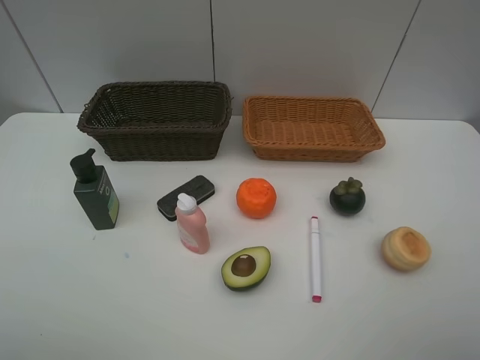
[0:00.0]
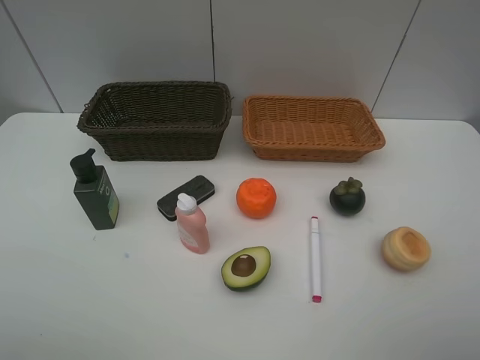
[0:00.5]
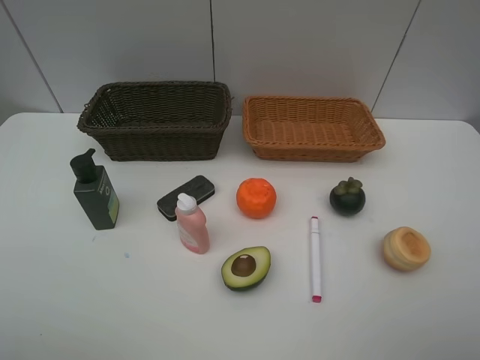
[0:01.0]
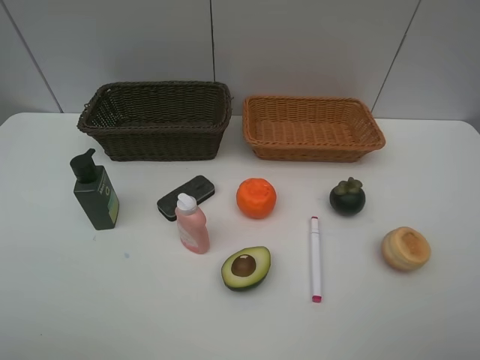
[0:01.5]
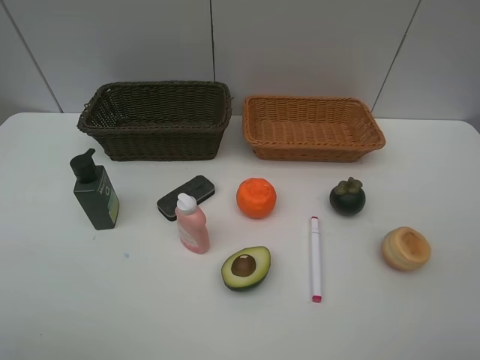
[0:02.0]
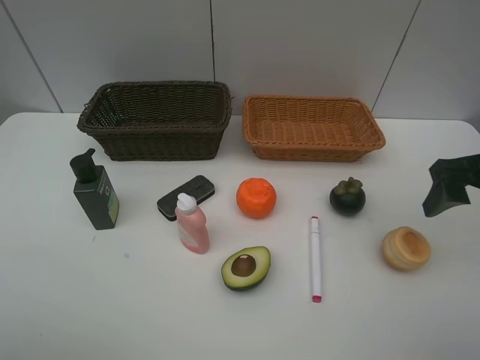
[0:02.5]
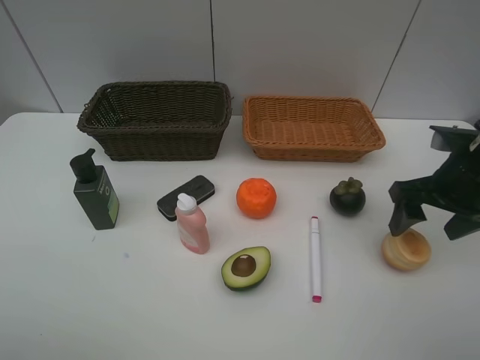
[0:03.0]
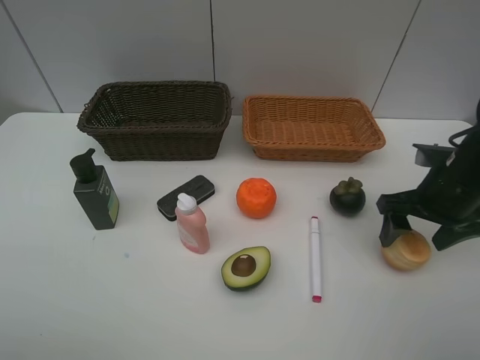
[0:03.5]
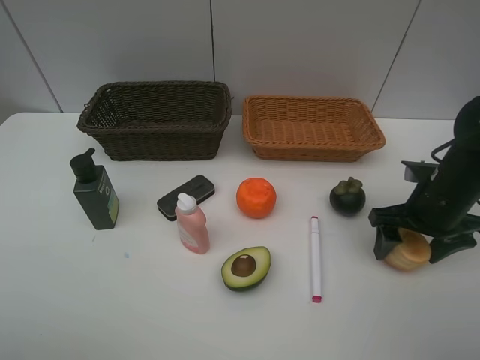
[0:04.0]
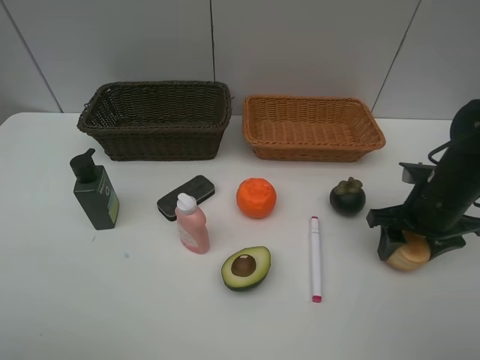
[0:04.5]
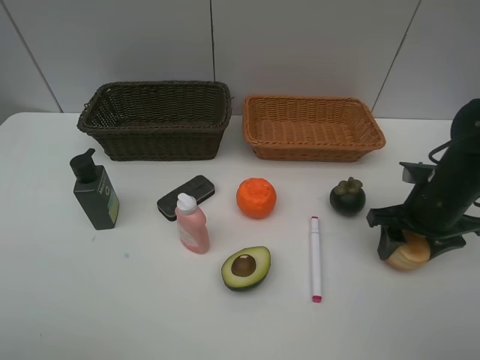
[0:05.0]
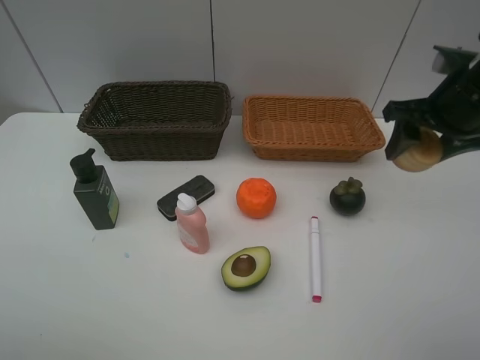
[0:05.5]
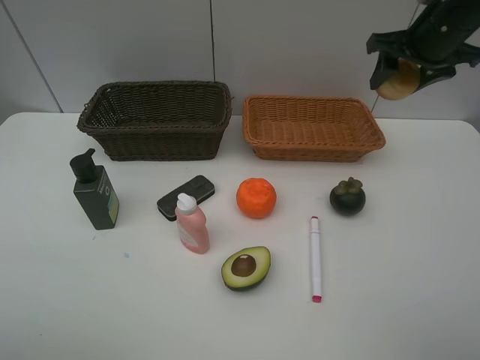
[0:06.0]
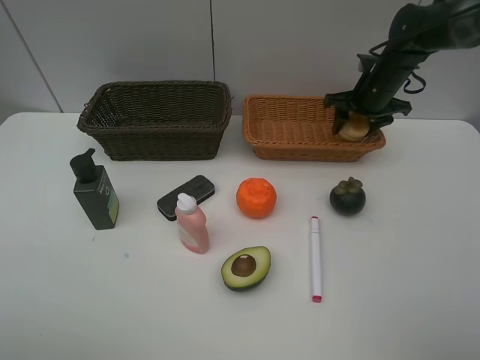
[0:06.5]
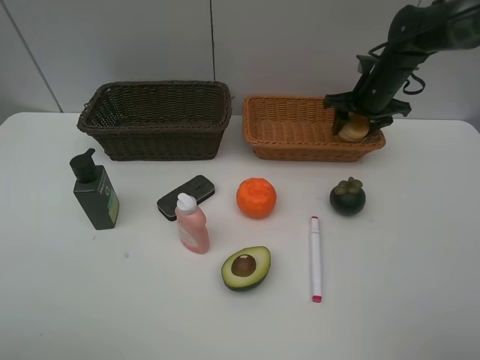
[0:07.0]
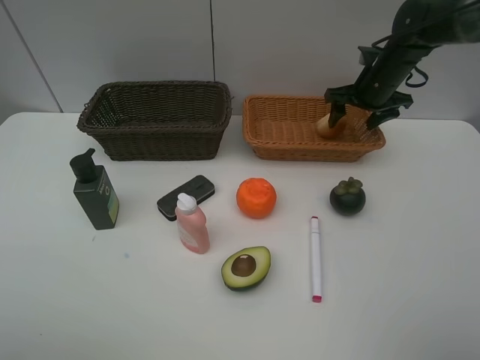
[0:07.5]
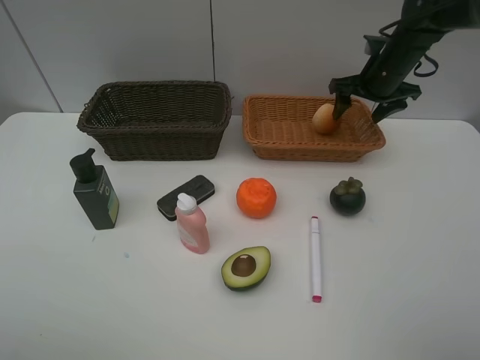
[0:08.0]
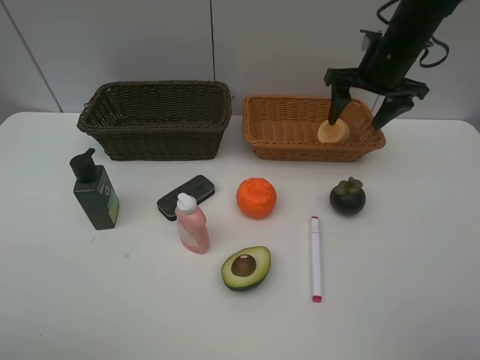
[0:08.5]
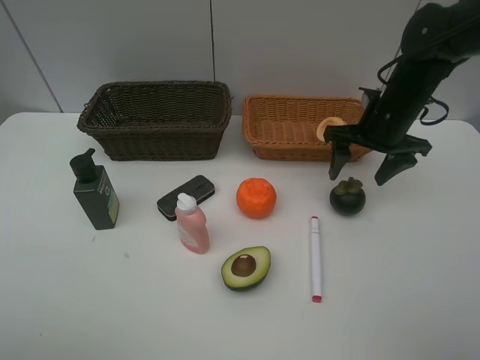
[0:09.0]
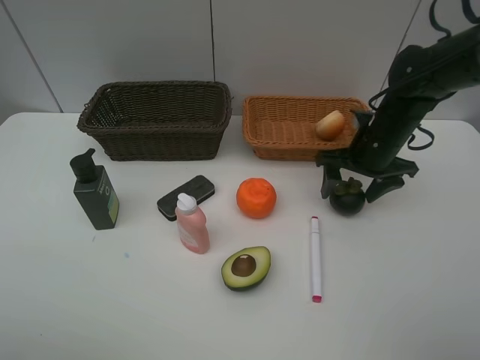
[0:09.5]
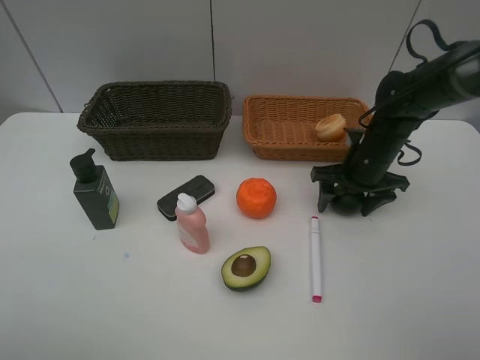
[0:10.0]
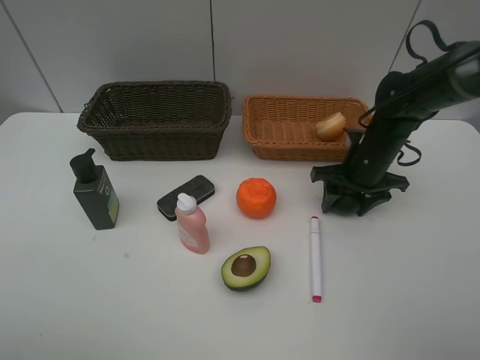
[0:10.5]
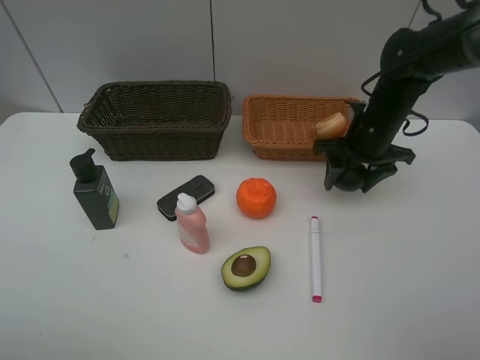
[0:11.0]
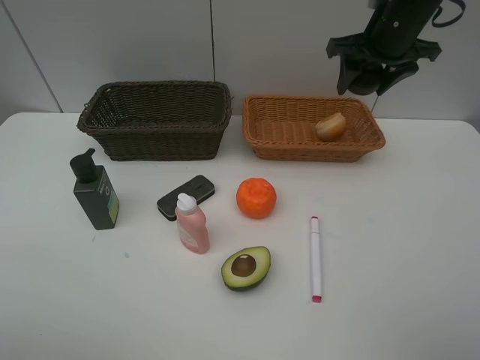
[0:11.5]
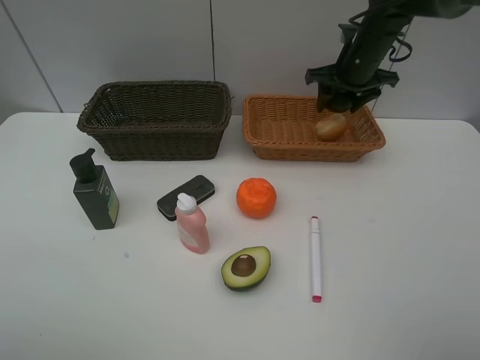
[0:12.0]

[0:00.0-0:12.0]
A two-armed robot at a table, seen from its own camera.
Task of the whole recording: Place multiple objects separately in different baskets.
Step, 0:00.0 to 0:05.0: Pick up egg yolk pastry with right gripper.
Step, 0:05.5 to 0:07.5: Place the egg yolk pastry in the light basket with right gripper.
Step, 0:08.0 to 0:11.0: Pick up the mangosteen with right gripper.
0:02.0 to 0:04.0: The right gripper goes roughly 20 cm downward and forward.
0:04.0 to 0:06.0: The right gripper goes about 20 cm upward and forward.
0:06.0 to 0:08.0: The right gripper shifts about 10 cm downward and forward.
0:08.0 to 0:10.0: The right gripper is displaced backward and downward by roughly 15 cm.
0:10.0 to 0:12.0: The right gripper travels forward and upward by about 15 cm.

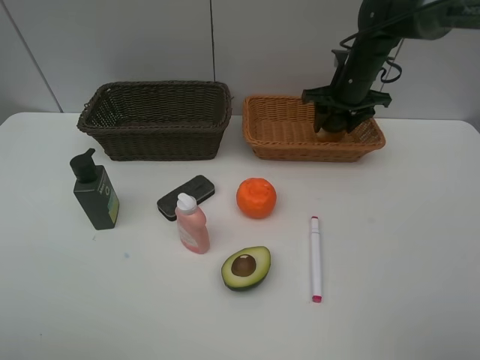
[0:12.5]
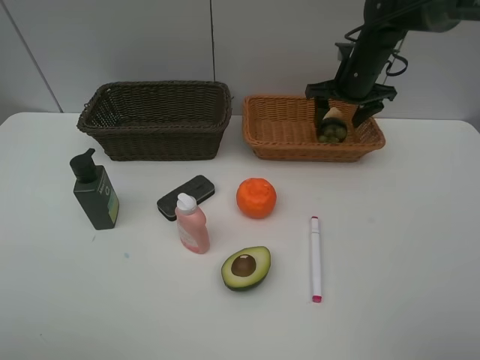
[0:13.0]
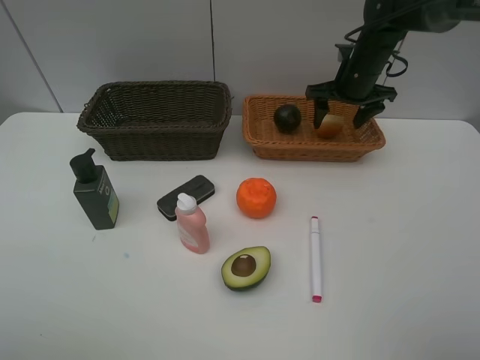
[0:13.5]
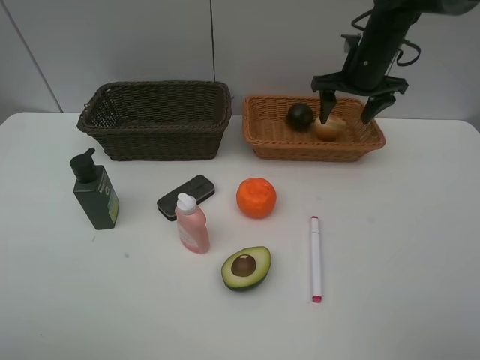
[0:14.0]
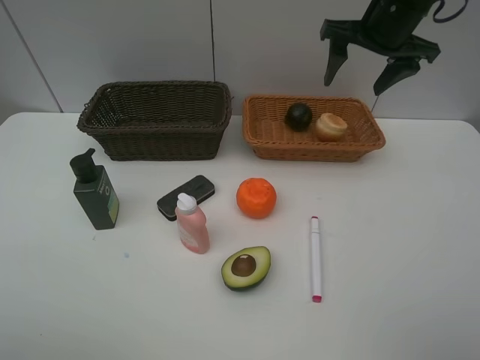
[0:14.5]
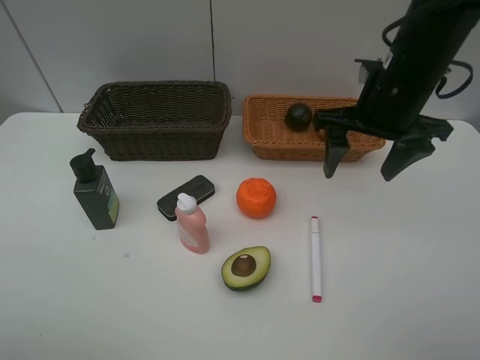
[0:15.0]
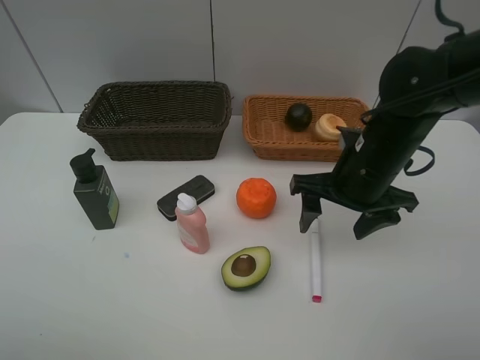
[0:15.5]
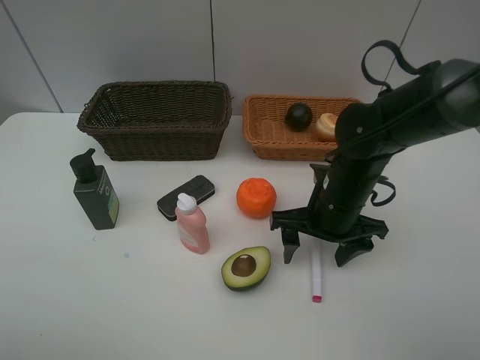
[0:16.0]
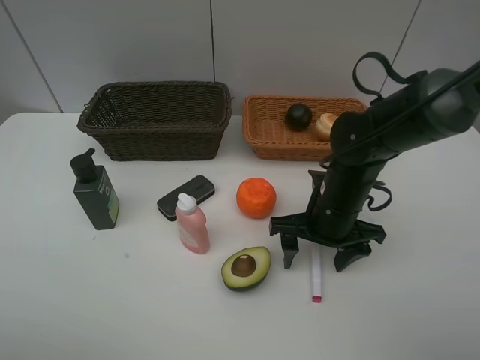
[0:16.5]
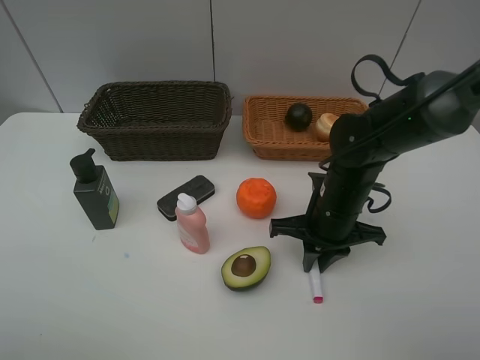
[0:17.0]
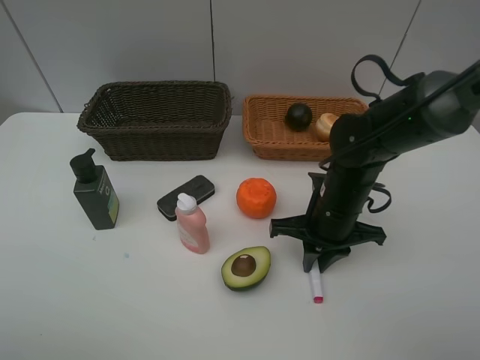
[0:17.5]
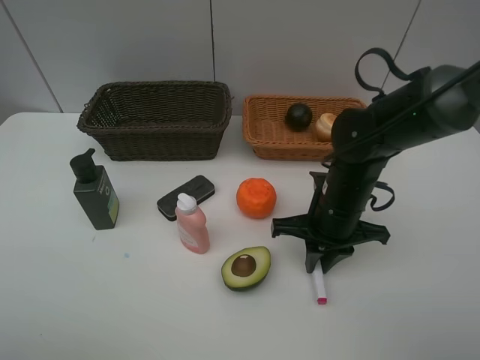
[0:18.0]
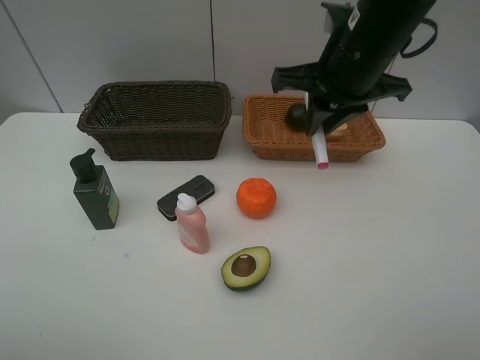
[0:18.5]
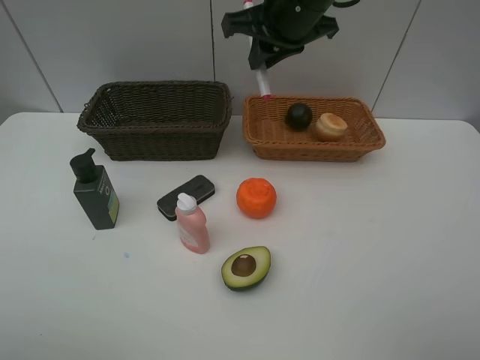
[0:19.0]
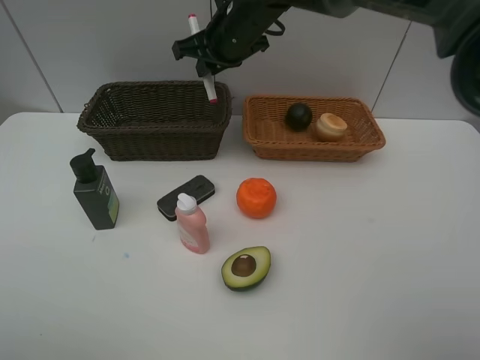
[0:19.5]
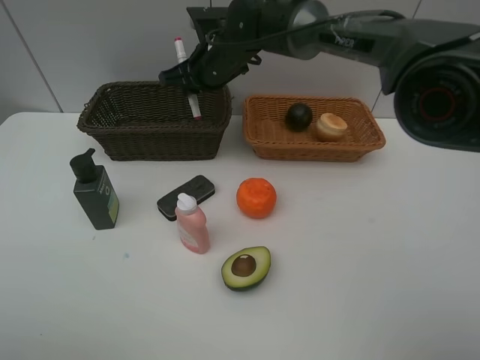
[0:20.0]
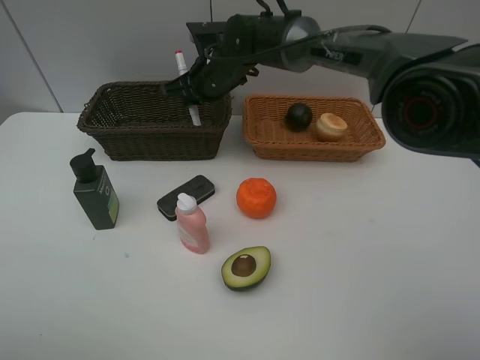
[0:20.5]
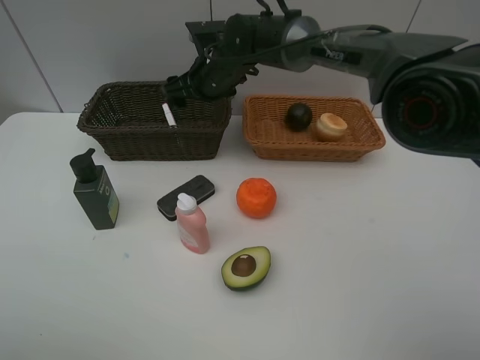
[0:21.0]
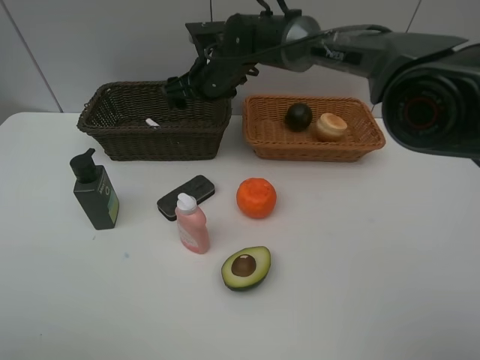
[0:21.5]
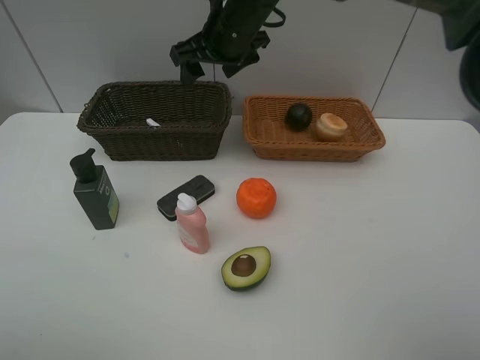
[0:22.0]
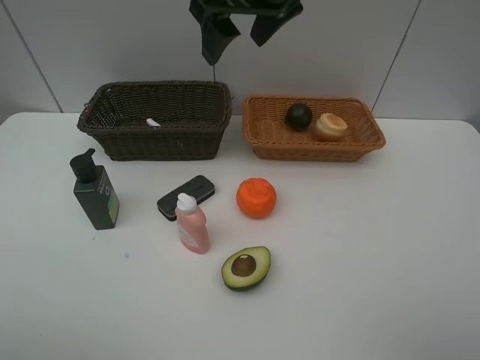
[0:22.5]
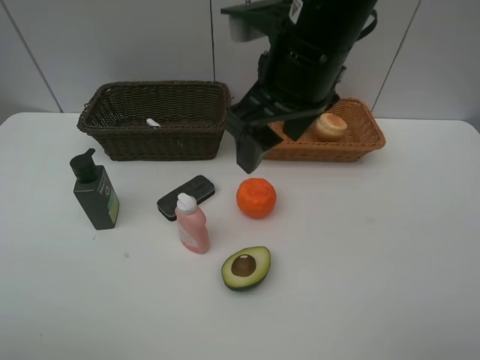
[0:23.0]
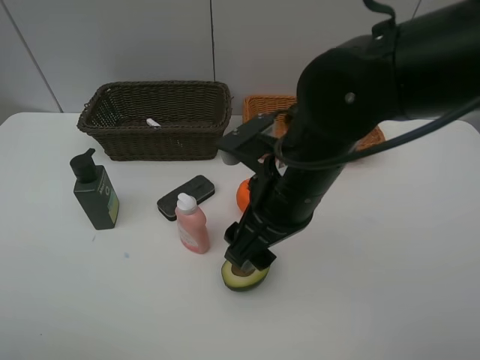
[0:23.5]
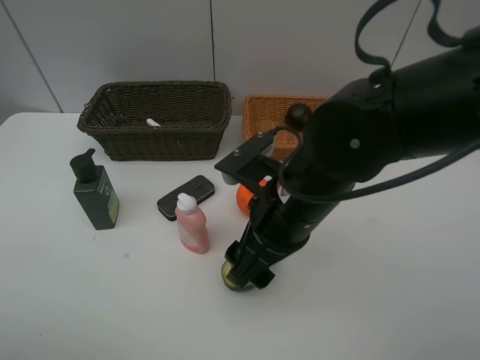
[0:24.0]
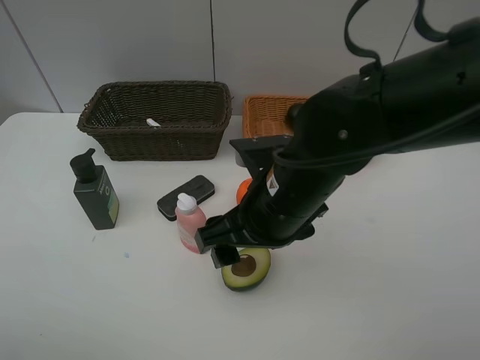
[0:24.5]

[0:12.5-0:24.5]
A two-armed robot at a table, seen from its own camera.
Task of the whole recording: Place multiple objects separately in different baskets.
Step, 0:14.0 to 0:18.0: Pick up the red marker with right gripper.
Step, 0:18.5 to 0:21.0: Place the red marker in the dark basket with right gripper.
0:12.5 to 0:14.5: The right gripper heads upward and backward, covering approximately 15 cm.
0:14.5 to 0:16.5: The right gripper is displaced downward and backward by roughly 25 cm.
0:16.5 to 0:18.5: The right gripper travels upward by roughly 20 cm, and closes.
0:18.5 to 0:20.5: The right gripper heads to the left, forward and downward, covering some 25 cm.
0:20.5 to 0:22.5: The right gripper travels upward and backward by approximately 20 cm, and opens.
0:22.5 to 0:24.5: The right gripper shifts approximately 20 cm downward and backward.

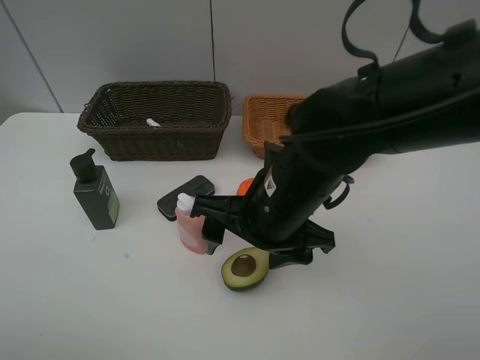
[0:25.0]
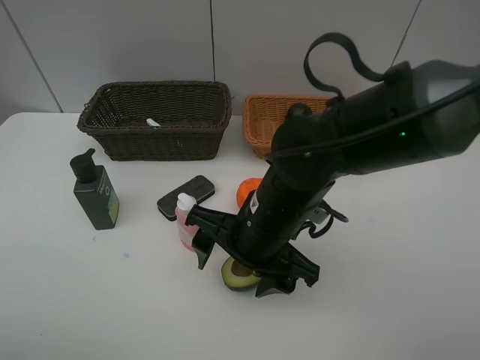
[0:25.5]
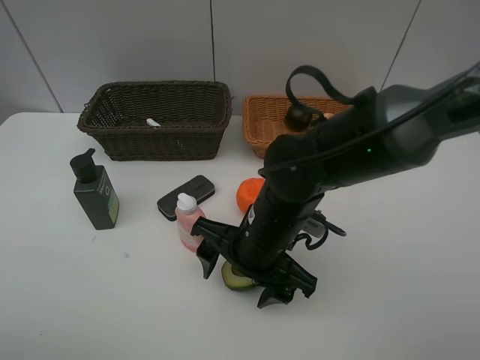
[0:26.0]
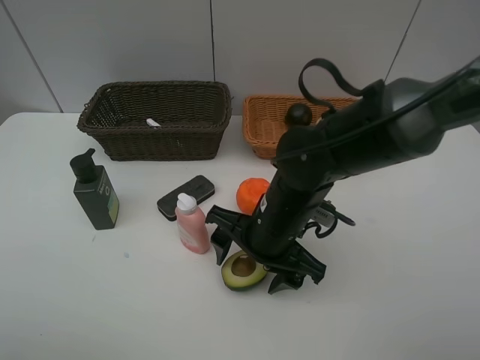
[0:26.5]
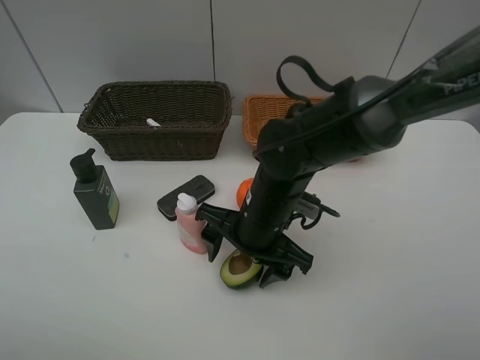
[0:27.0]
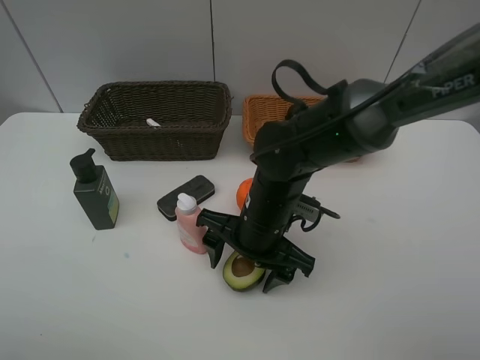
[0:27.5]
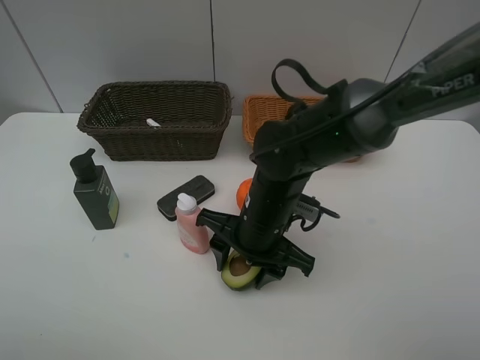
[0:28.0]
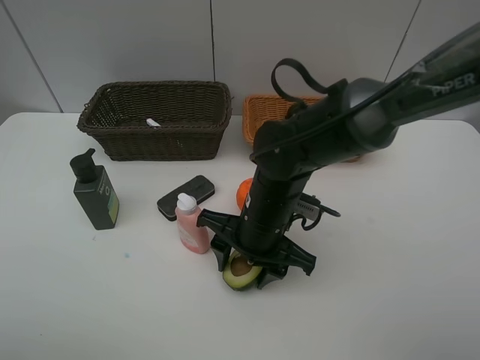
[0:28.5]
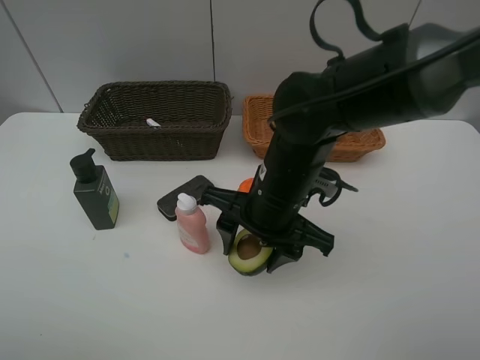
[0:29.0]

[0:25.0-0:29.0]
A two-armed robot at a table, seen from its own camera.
Task of the whole recording: Place multiple objects separately in different baskets.
Step, 0:25.0 to 0:28.5: Pick up the avocado with right gripper.
0:25.0 to 0:27.0: The right gripper shifts roughly 5 cm downward.
0:27.0 to 0:29.0: The right gripper moves upward, about 5 cm.
